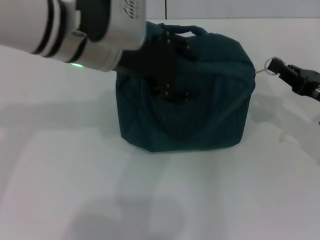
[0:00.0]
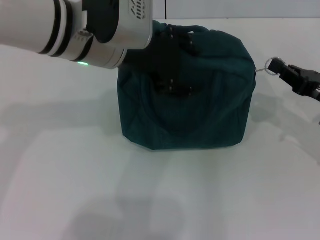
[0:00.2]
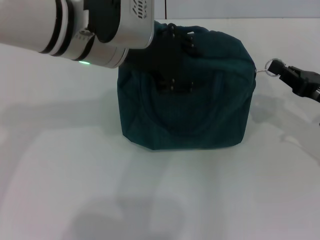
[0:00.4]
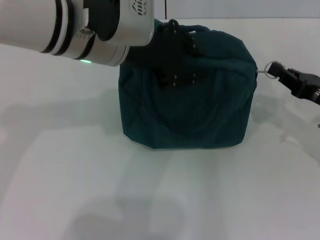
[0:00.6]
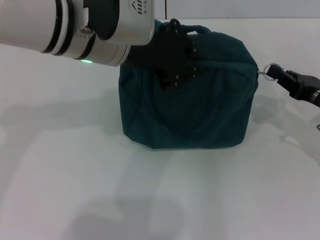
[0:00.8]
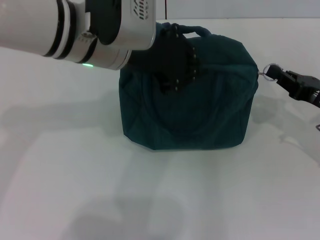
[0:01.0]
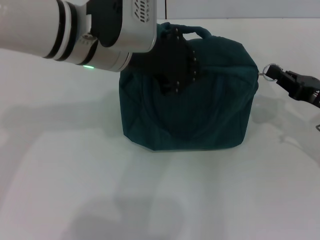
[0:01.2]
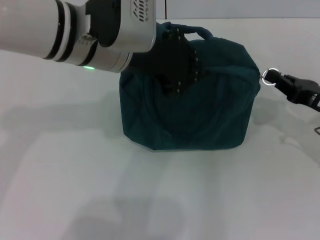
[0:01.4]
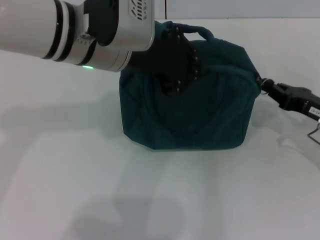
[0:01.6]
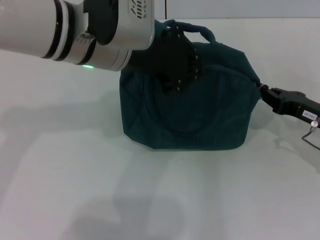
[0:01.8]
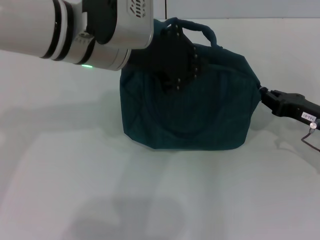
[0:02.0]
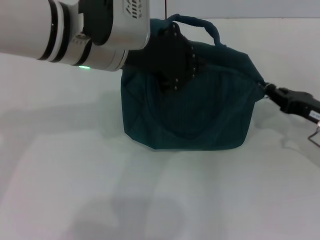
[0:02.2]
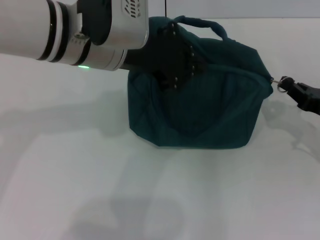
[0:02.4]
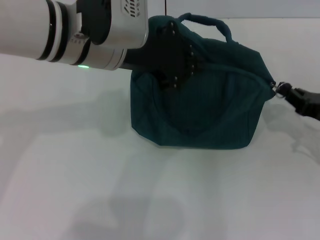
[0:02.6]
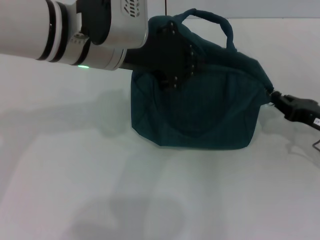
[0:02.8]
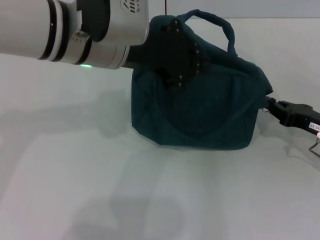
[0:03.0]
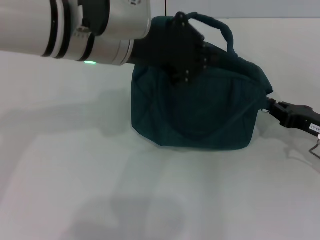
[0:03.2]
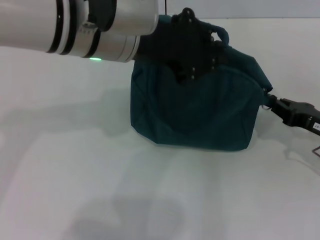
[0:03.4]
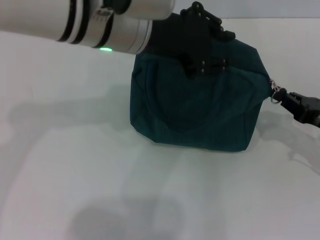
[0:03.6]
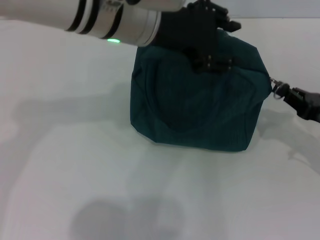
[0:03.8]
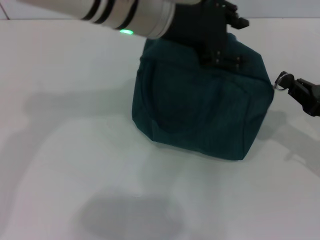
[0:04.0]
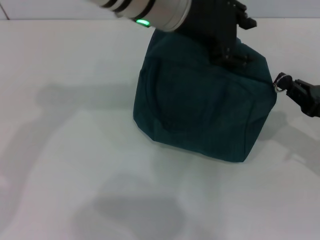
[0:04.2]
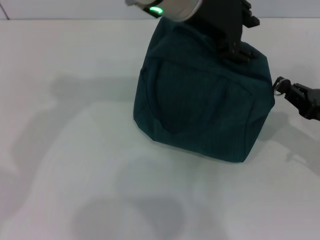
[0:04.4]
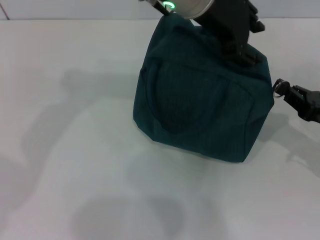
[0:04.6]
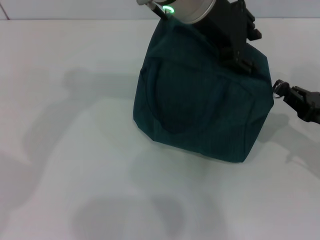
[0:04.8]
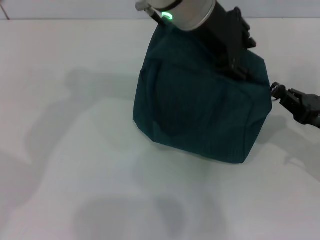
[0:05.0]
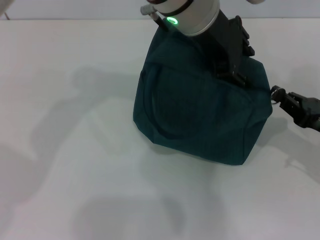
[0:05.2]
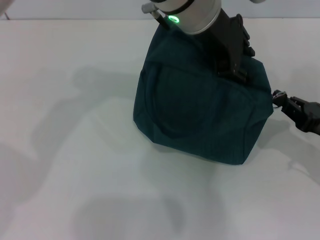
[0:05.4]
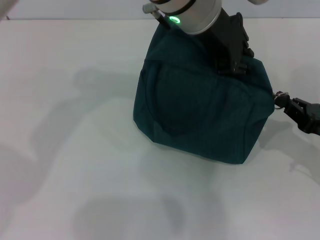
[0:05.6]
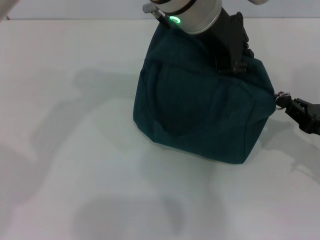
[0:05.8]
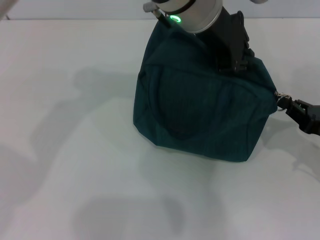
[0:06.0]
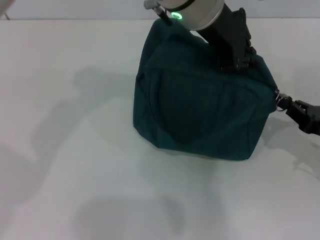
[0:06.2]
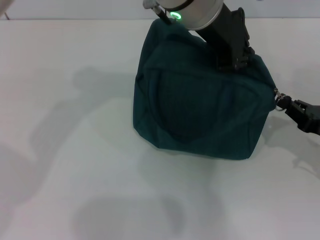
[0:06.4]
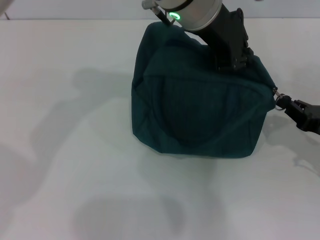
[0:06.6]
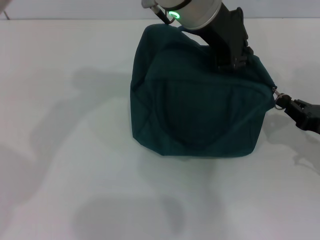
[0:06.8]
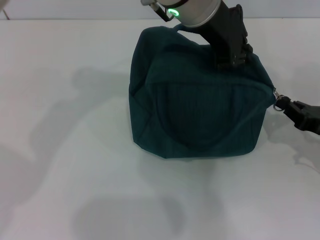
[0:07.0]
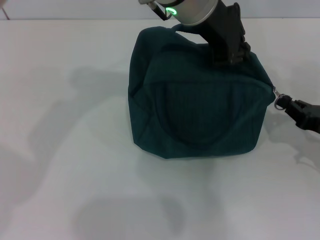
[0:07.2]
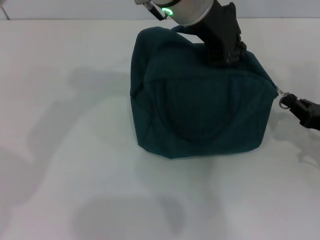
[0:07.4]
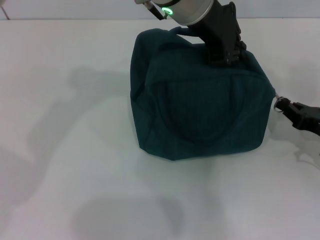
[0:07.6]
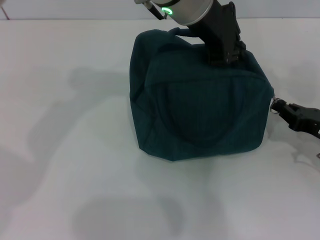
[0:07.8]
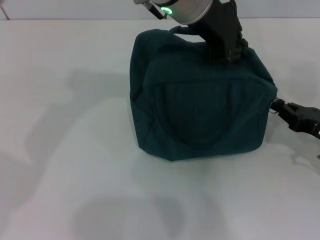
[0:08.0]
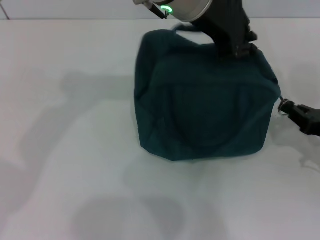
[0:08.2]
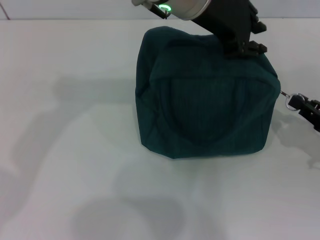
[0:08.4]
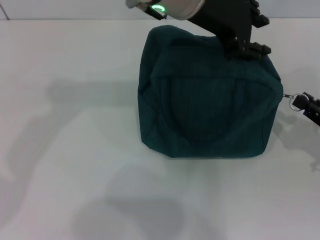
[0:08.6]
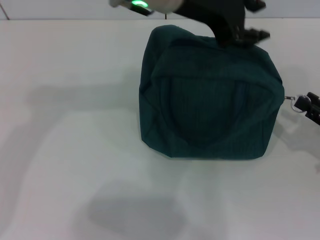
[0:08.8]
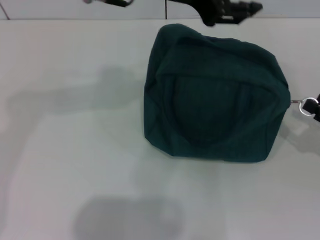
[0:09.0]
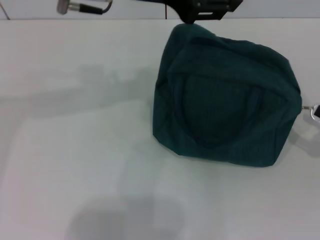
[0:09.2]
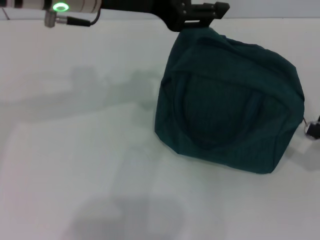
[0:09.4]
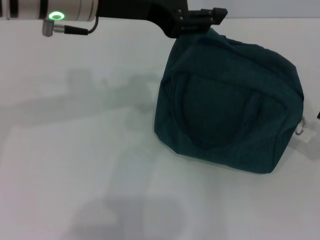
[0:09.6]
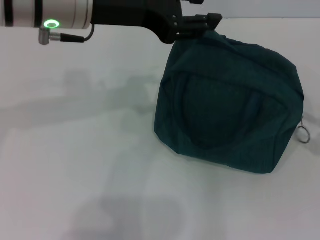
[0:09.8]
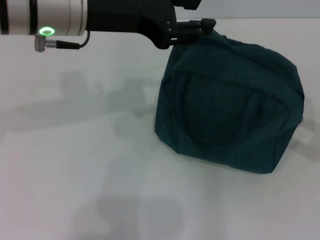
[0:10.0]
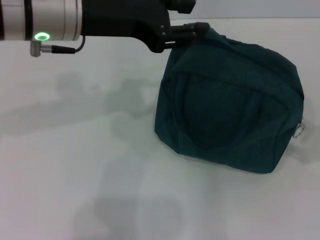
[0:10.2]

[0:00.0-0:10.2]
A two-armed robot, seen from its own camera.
Step, 0:00.0 to 0:08.6: Hold the lunch bag with your left hand.
Step, 0:08.8 to 0:09.4: Zip up the lunch bag with your right hand.
0:00.0 to 0:01.4: The left gripper closes up.
0:01.4 to 0:03.0: There are only small adjustments of the grippers.
0:03.0 to 0:04.4: The left gripper moves to the right, roughly 10 cm, and opens.
0:04.4 to 0:07.2: The grippers stay close to where they were, moving slightly.
0:07.2 to 0:08.8: The left gripper changes place by some 5 cm, and opens up.
0:08.8 to 0:10.2: The left gripper travels to the left by approximately 10 cm; the right gripper moves upward, some 5 cm, and opens its fingers.

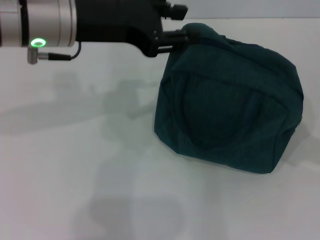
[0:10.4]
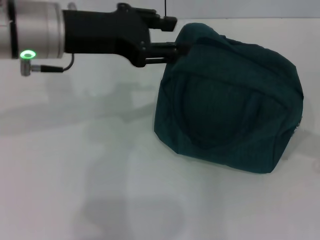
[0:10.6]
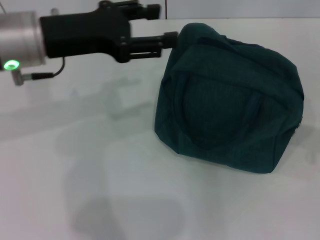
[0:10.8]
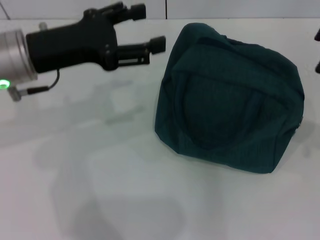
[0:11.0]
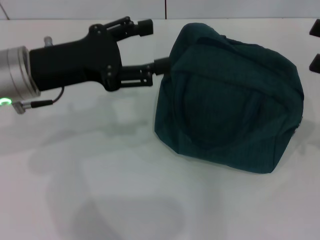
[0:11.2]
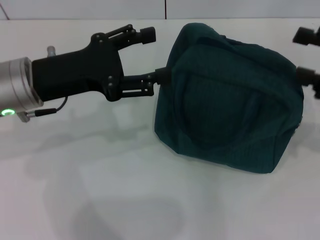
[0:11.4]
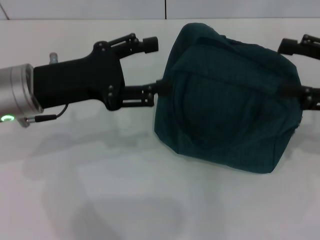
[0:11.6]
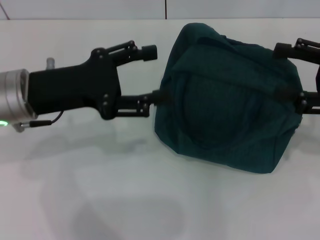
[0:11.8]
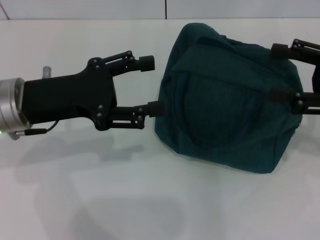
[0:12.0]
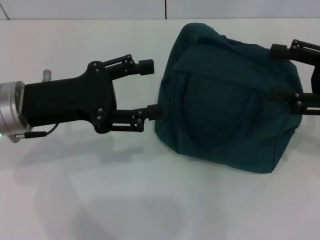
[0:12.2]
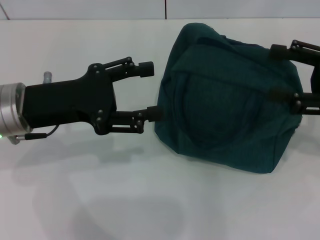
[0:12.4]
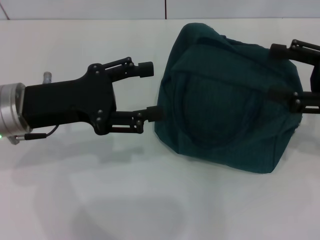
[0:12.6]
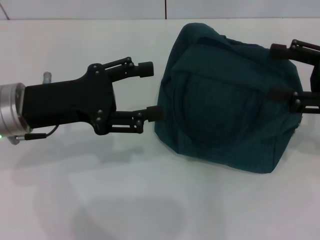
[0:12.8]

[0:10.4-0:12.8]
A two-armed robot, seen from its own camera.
0:10.4 to 0:11.6: The right gripper shifts about 10 cm to the left and forward; the left gripper heads downward and to the left, covering roughly 10 cm, and opens.
0:11.6 to 0:12.8: There are only small adjustments of the grippers.
